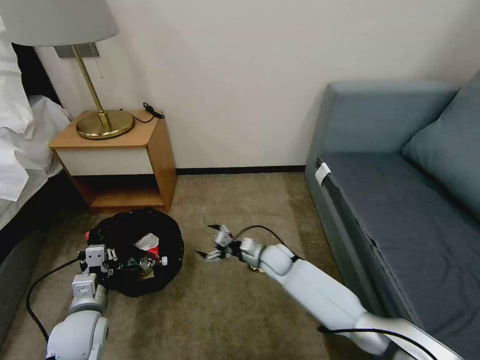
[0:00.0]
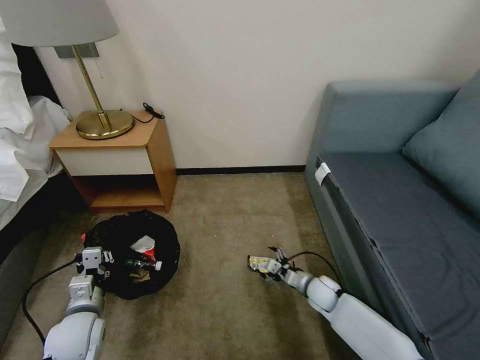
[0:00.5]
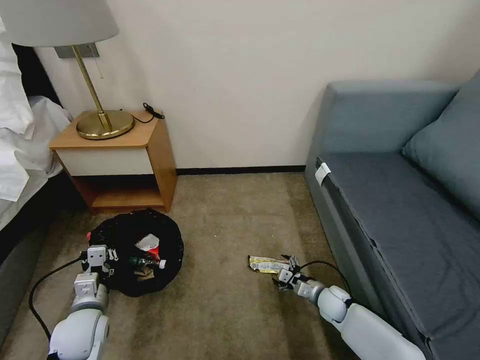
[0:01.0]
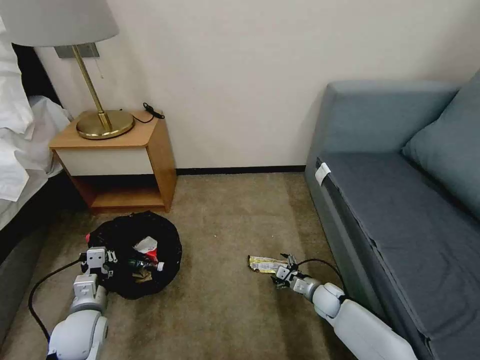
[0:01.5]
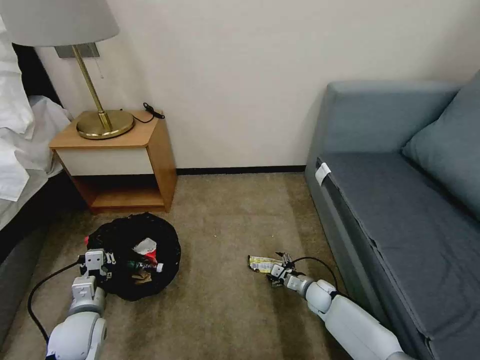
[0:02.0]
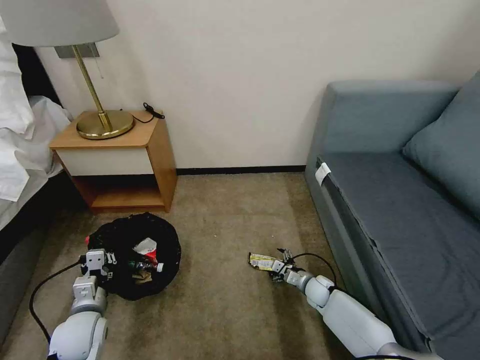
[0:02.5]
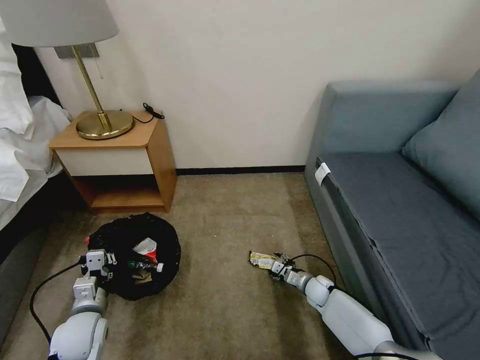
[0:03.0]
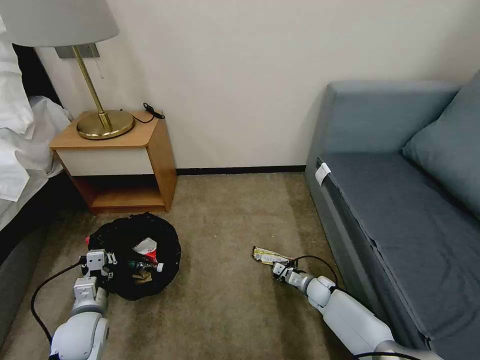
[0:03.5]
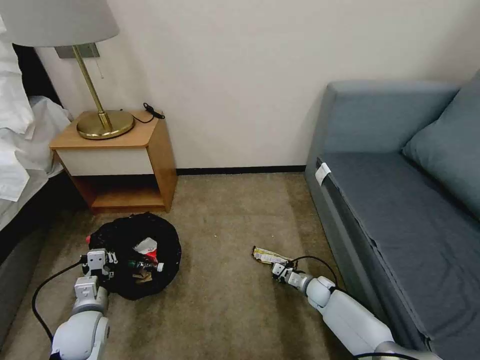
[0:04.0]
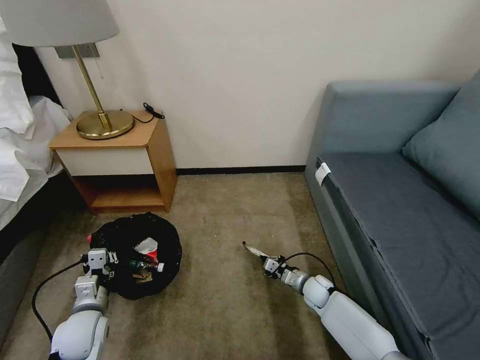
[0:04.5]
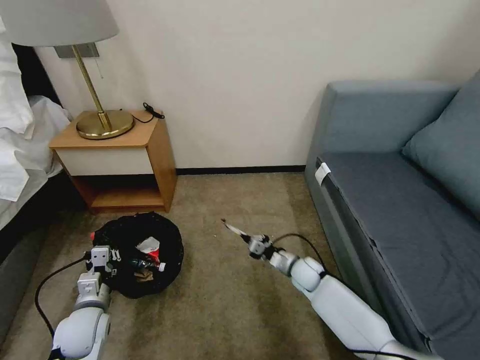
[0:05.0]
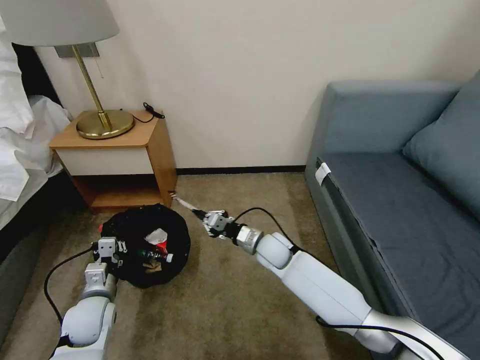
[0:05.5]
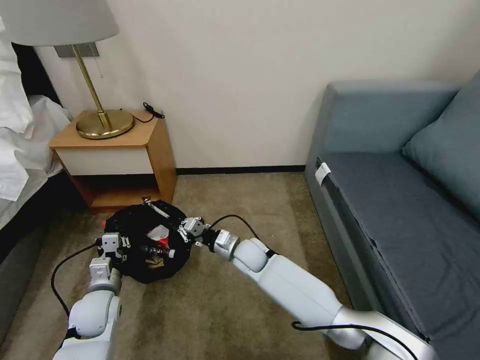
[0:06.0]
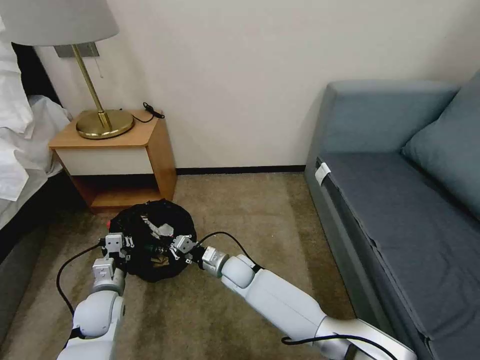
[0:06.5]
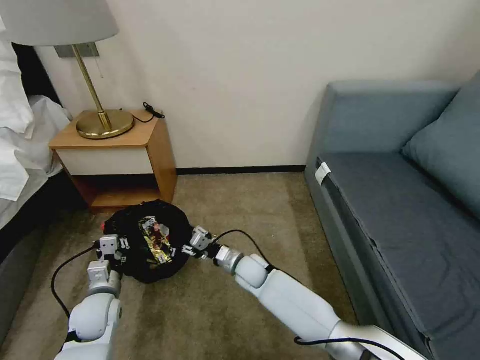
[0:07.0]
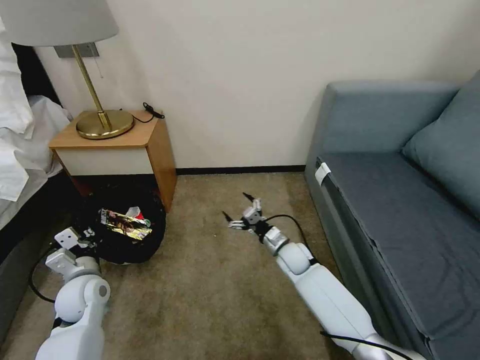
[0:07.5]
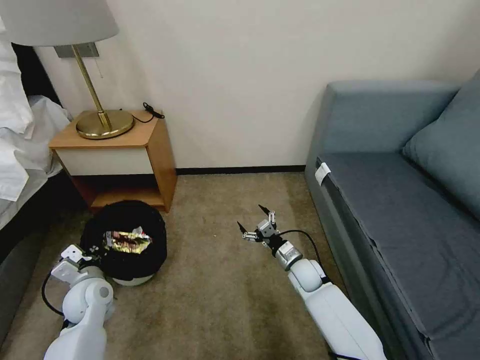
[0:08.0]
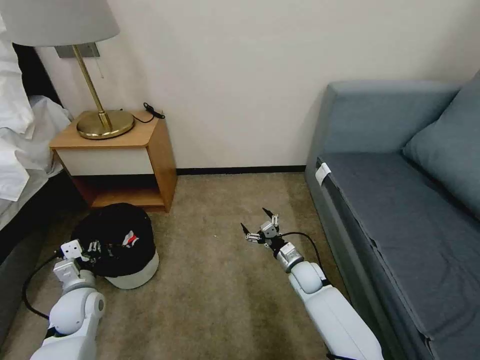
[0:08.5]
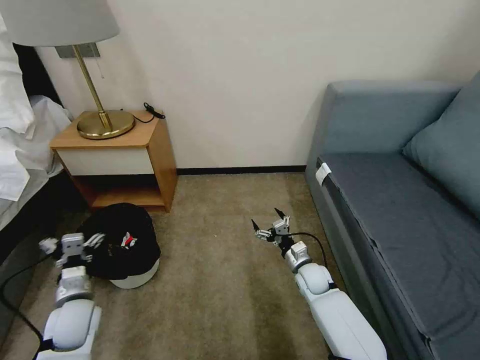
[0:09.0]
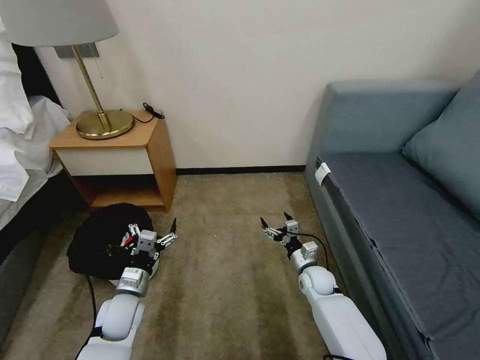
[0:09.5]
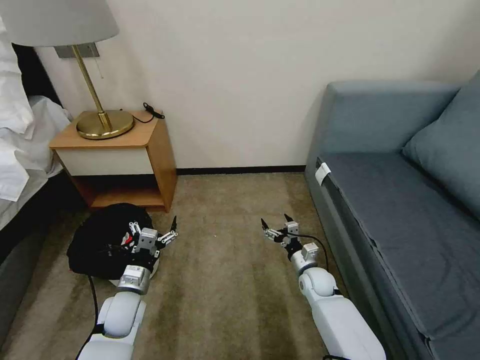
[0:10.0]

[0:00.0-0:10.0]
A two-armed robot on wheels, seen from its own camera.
Task of the whole recording: Pick up the trash bin, then pick up the garbage on the floor and place it into the trash bin.
0:00.0 to 0:02.0: The right gripper goes approximately 20 cm to the right, downward and backward.
0:02.0 to 0:04.0: The right gripper closes its fingers.
0:04.0 to 0:06.0: The right gripper travels to the left and upward by about 30 cm.
0:06.0 to 0:08.0: The right gripper goes roughly 20 cm to the right and downward, and opens.
0:08.0 to 0:10.0: The left gripper shifts roughly 10 cm to the right, and opens its fingers.
